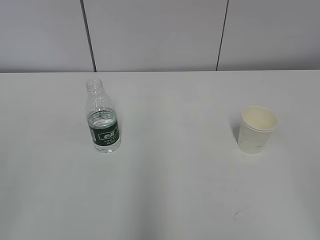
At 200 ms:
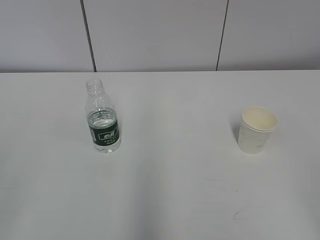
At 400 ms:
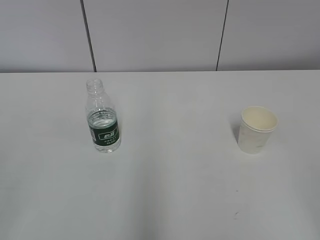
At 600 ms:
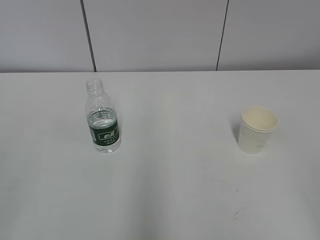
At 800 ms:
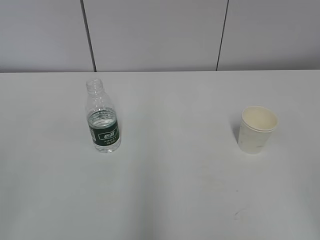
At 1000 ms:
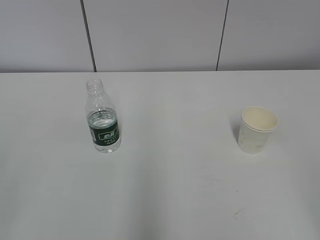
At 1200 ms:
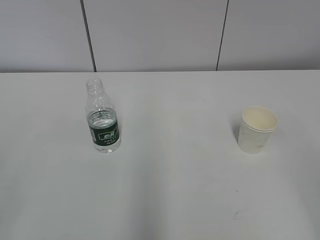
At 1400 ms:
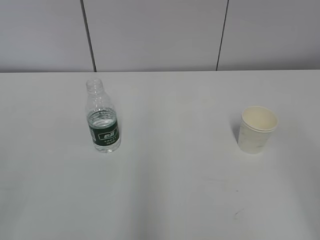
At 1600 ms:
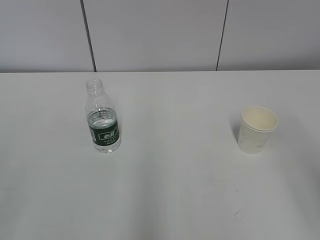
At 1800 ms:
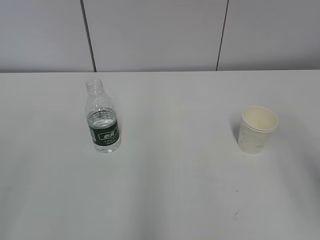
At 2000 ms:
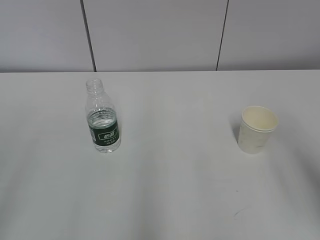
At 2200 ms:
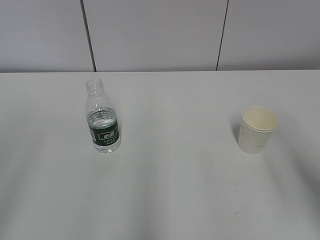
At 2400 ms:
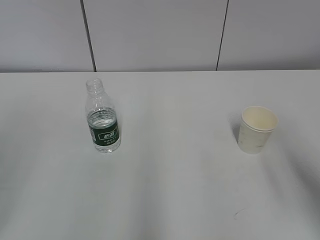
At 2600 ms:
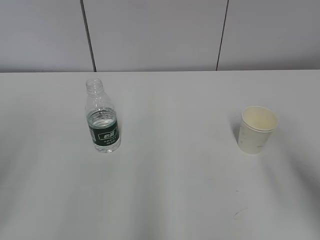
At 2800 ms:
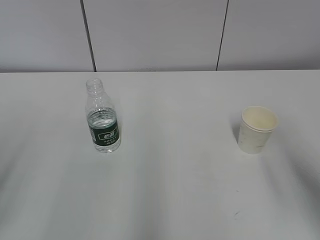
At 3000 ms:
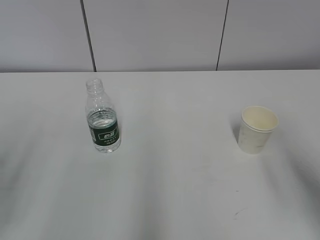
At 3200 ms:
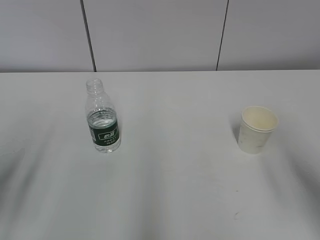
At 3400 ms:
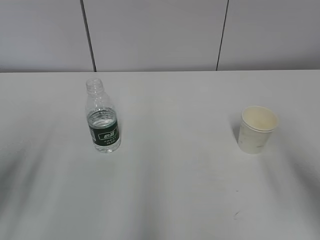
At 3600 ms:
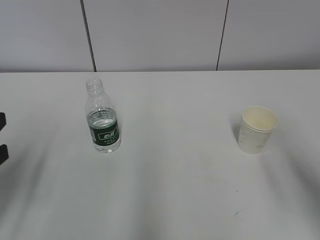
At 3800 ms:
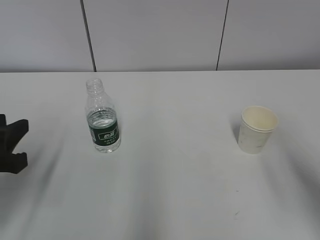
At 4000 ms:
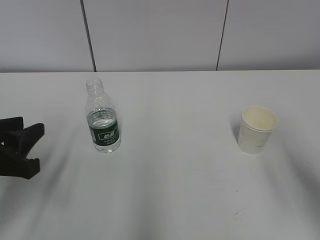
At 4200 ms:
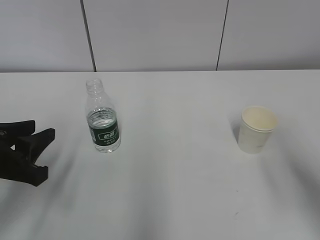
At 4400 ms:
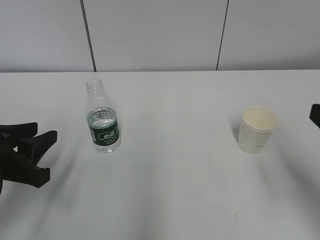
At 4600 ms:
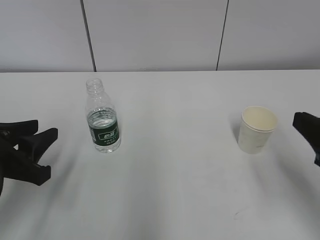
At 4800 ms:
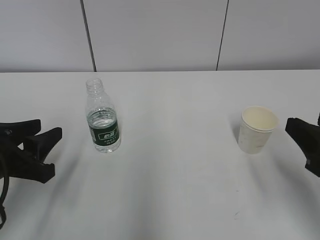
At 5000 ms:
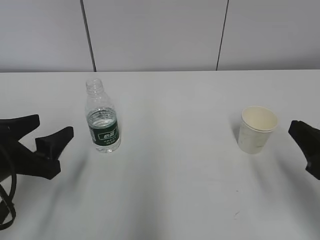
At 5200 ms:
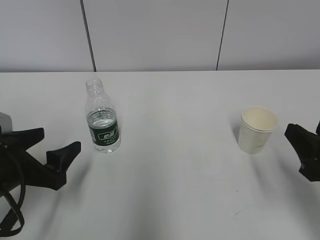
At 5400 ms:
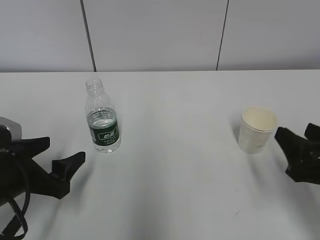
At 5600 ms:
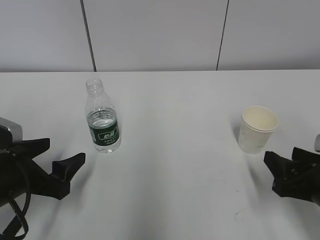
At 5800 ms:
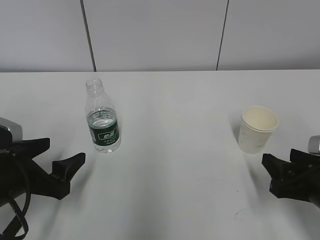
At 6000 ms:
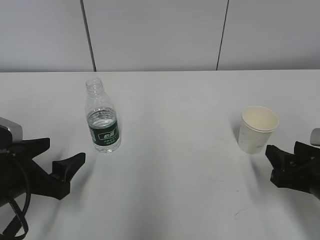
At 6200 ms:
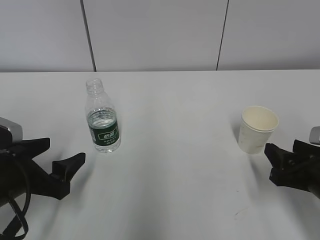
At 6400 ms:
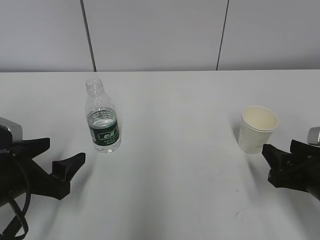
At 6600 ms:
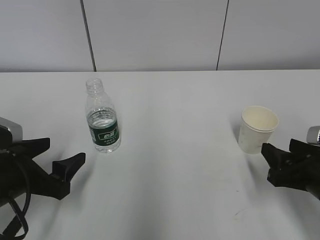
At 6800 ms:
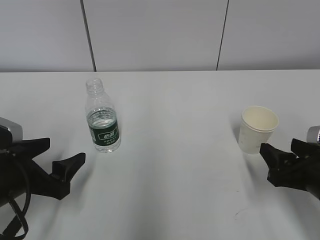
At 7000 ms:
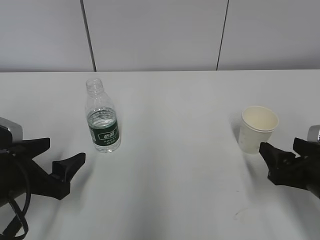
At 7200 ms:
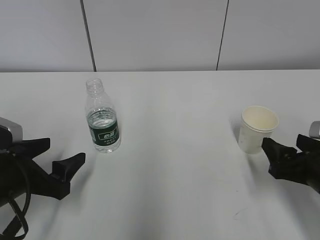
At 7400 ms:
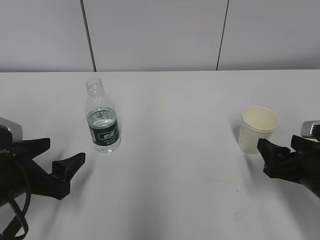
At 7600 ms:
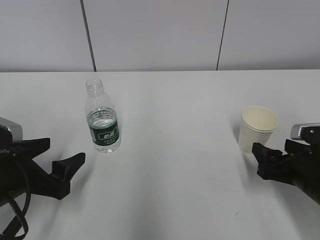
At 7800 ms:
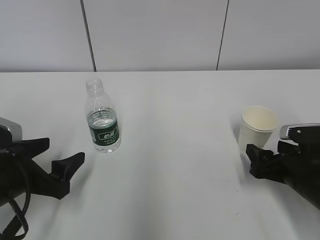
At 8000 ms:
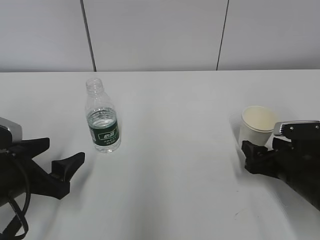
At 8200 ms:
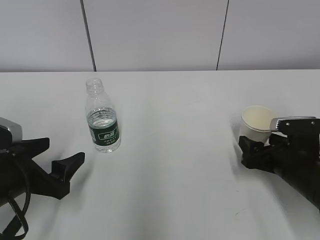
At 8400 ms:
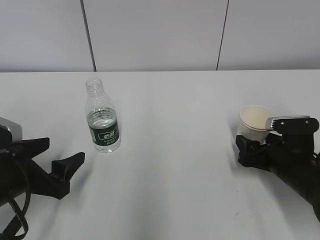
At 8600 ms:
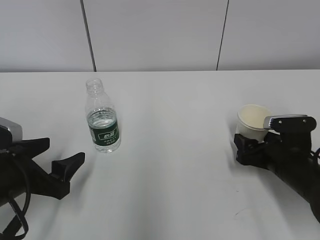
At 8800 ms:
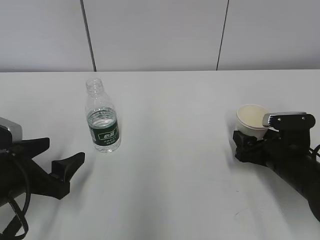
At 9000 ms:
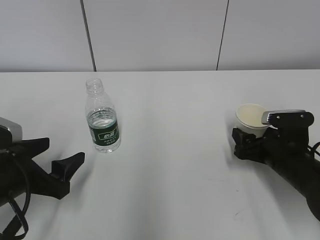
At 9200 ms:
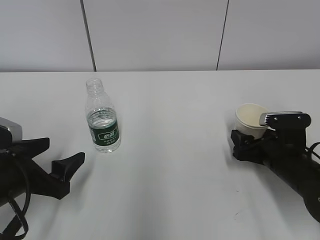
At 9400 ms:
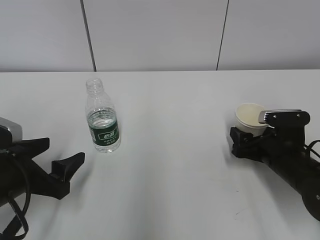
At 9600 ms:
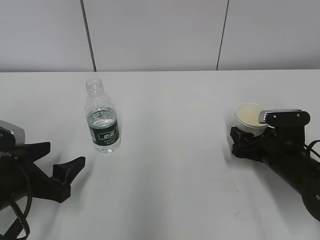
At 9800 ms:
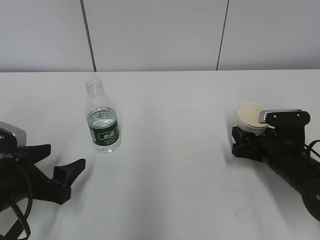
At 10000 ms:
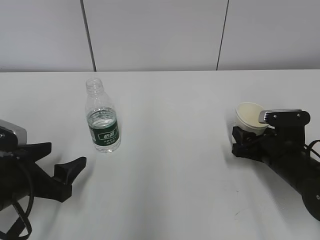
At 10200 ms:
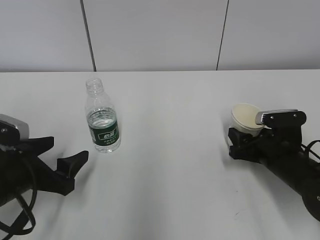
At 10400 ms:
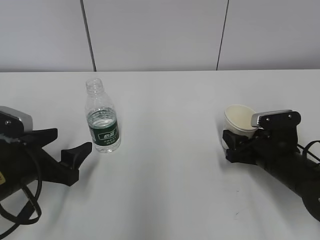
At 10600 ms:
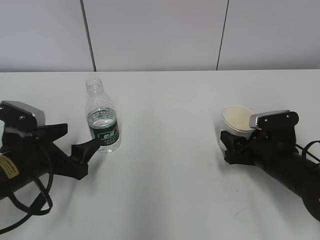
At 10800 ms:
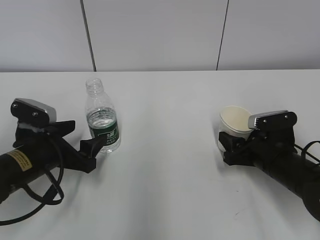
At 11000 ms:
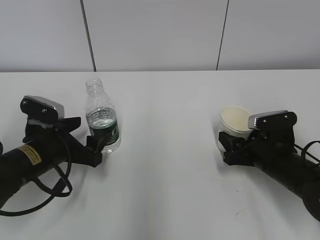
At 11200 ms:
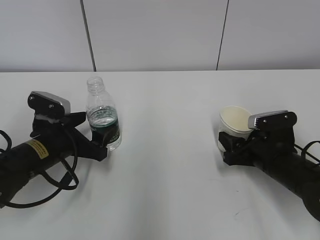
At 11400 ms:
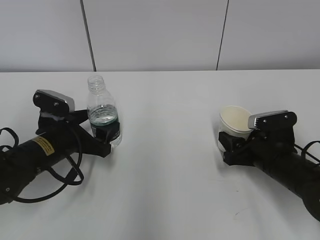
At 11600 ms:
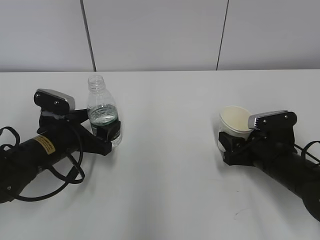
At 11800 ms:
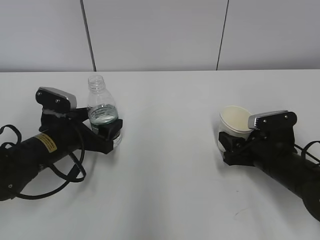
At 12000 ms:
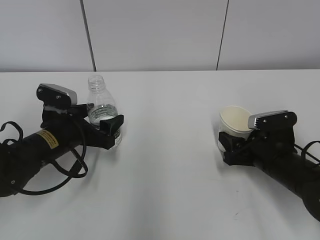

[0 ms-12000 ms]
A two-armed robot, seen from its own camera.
Step, 0 ms to 8200 ms: Grab the paper cup with the right hand.
Step, 8400 ms to 11000 ms: Grab the water bottle with the left hand.
1600 ms to 3000 ms: The right gripper shifts roughly 5 cm forward.
3000 ms to 4400 ms: The left gripper moves downward, forward and to the right, approximately 15 cm.
4400 ms to 6000 ms: The right gripper shifts about 15 cm downward and forward; the left gripper heads downward, covering approximately 5 cm, and opens its fingers.
6000 ms to 7600 ms: The right gripper opens.
7600 ms to 9000 ms: The right gripper moves forward, roughly 5 cm.
9000 ms to 10400 ms: The right gripper closes up.
10400 ms to 12000 ms: The left gripper heads forward, covering approximately 10 cm.

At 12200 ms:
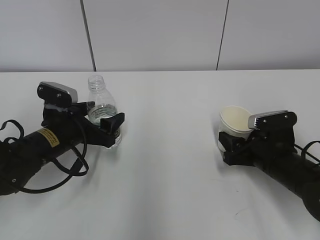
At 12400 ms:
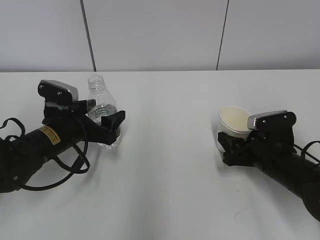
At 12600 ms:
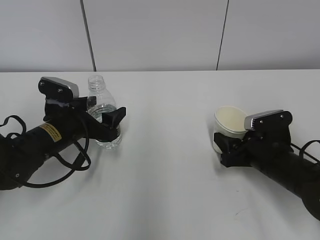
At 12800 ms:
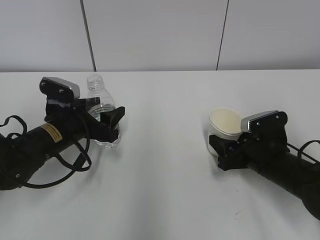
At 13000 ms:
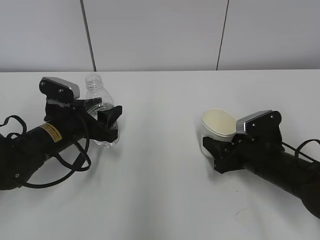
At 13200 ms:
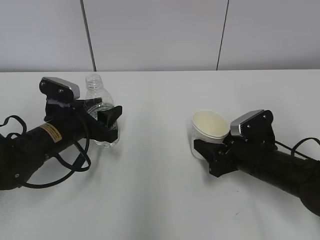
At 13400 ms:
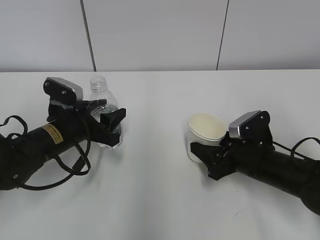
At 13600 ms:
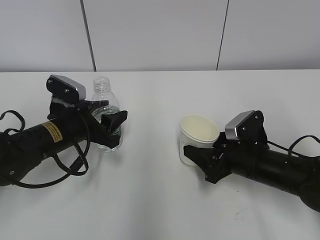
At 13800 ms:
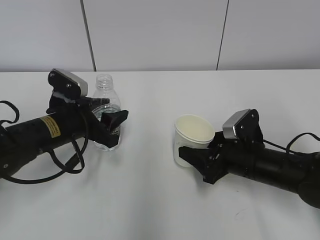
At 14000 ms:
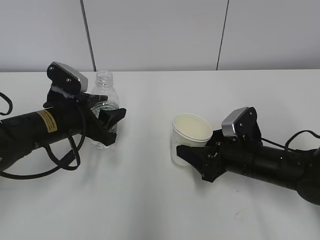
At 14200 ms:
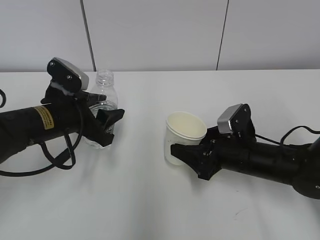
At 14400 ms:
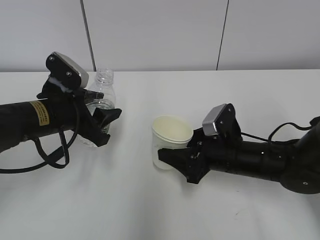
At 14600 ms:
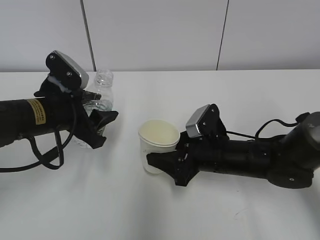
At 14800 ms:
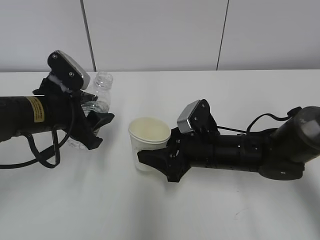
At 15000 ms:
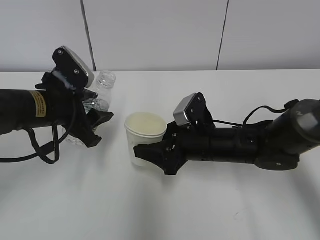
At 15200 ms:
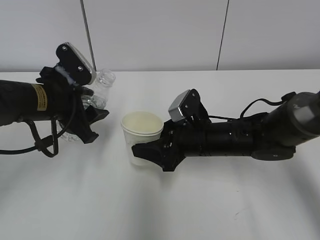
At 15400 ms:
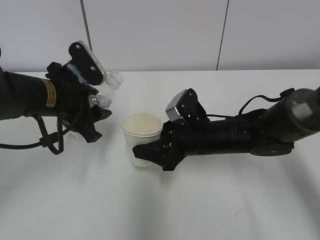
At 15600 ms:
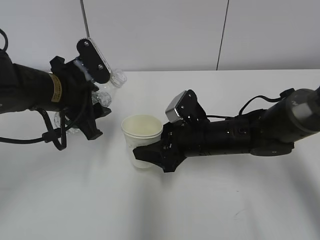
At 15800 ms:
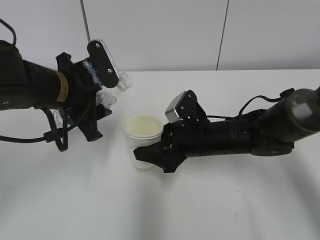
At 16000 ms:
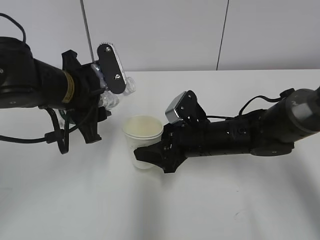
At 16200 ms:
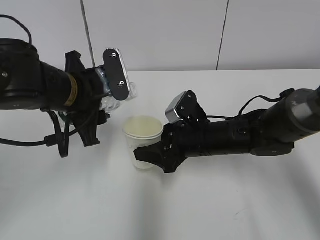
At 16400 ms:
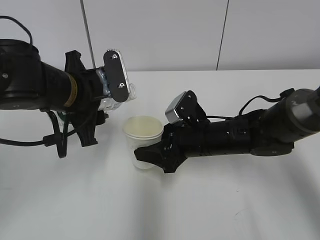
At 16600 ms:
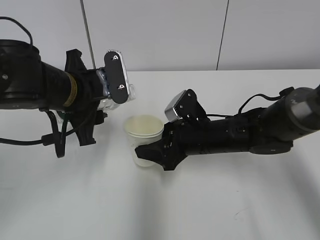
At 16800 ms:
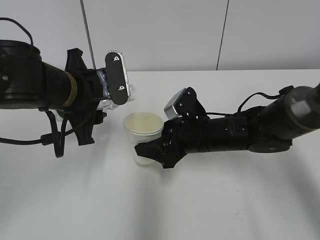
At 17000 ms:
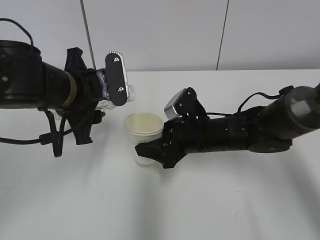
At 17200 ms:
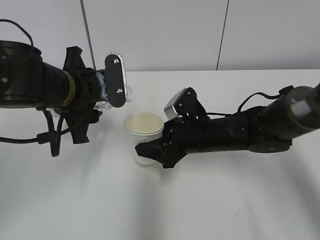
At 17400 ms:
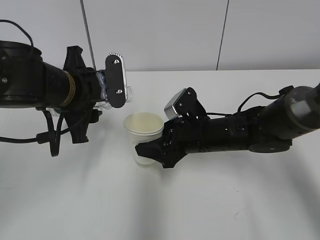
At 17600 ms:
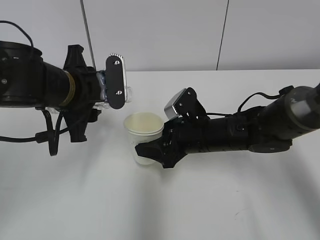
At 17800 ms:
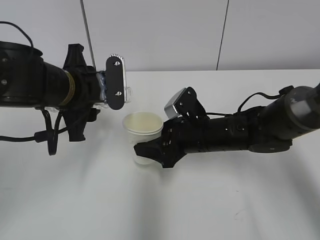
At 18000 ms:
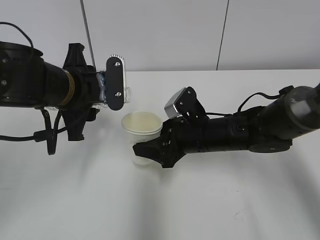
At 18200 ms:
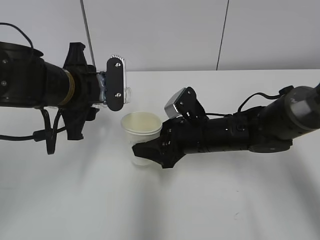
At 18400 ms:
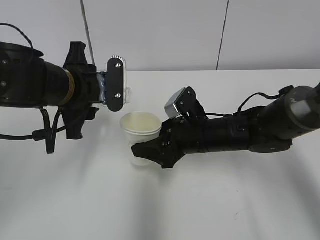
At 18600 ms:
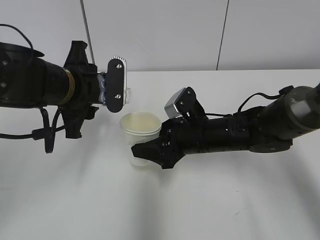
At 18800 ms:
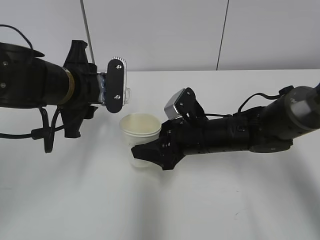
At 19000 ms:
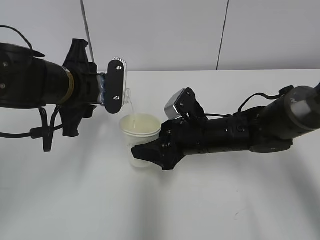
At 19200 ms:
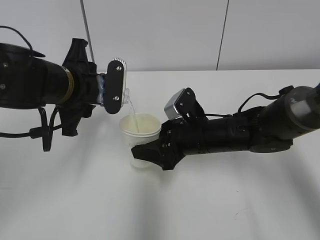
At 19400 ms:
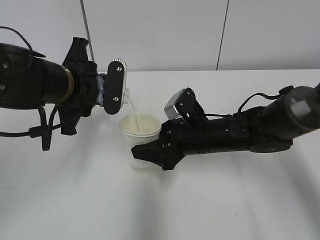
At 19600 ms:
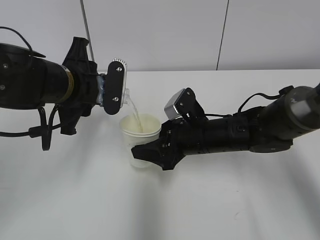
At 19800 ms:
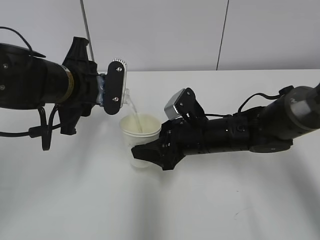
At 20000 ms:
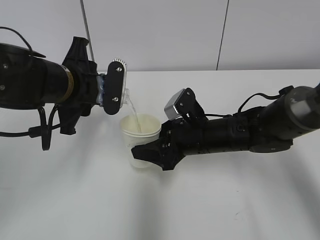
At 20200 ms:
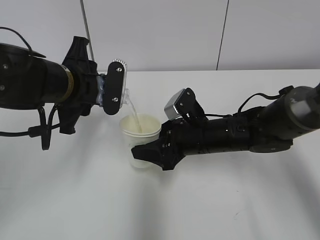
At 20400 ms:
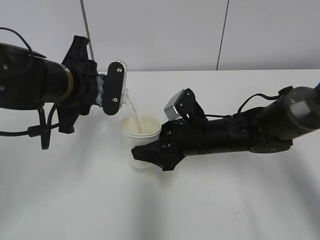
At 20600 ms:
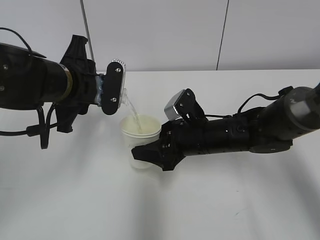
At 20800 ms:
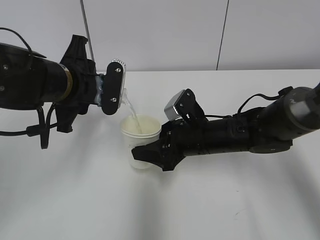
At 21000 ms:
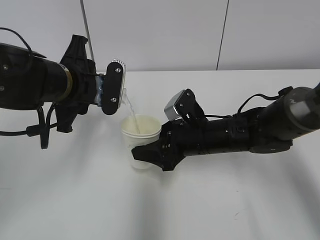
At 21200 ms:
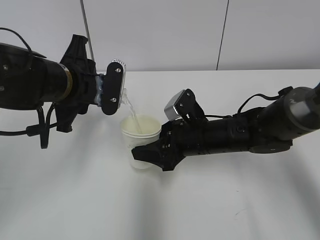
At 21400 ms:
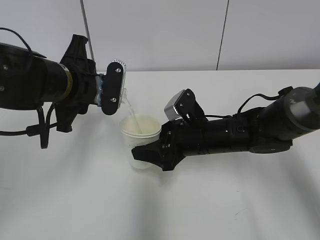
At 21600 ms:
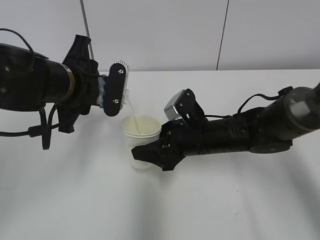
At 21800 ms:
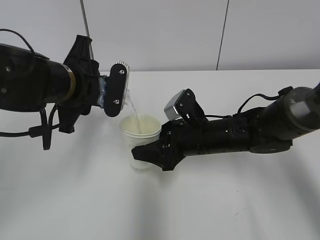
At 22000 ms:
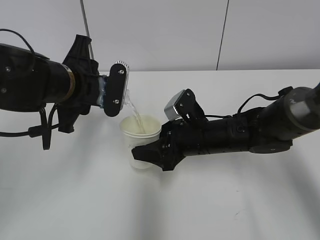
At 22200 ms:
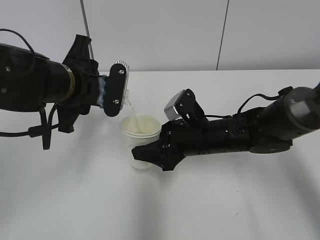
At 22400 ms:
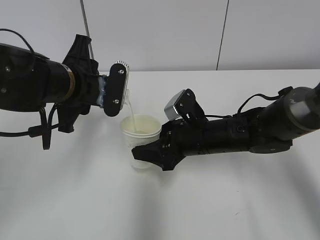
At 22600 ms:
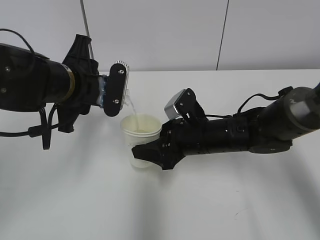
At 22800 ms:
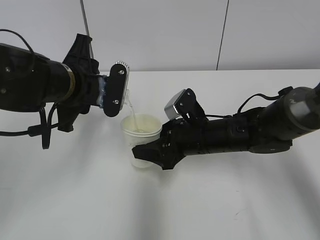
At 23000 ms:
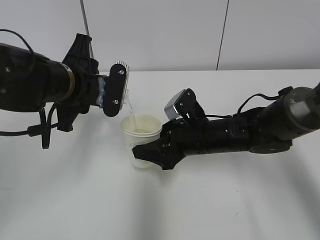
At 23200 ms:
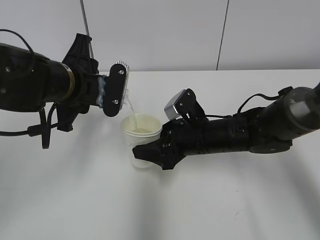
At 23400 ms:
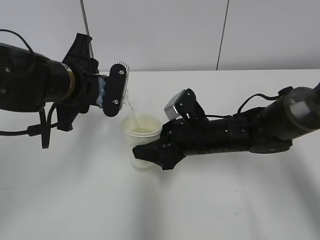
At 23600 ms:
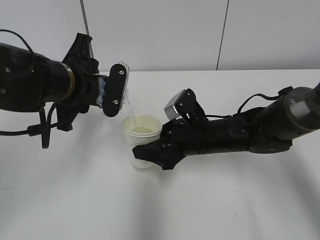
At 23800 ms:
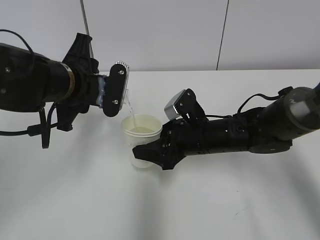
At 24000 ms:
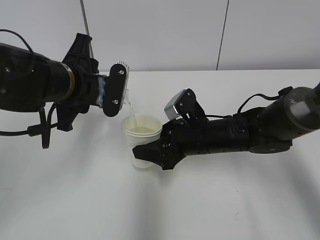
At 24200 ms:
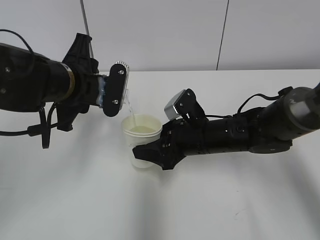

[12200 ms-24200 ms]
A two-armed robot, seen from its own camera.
Step, 12200 ms to 15600 ms: Lift the paper cup with the right hand.
Step, 15800 ms to 20600 ms: Fill water with the right hand.
Step, 15800 ms to 20600 ms: Pour water with the left hand.
Step, 20800 ms to 22600 ms: Collect water with the left hand.
12200 ms to 13800 ms: The left gripper closes its fingers.
13800 ms to 15200 ms: The left gripper goes approximately 5 cm upward; the right gripper shifts approximately 10 cm to the left.
15200 ms to 16600 ms: The left gripper shifts by about 5 cm.
16600 ms to 18200 ms: The grippers stay close to where they were, moving slightly.
18200 ms to 19800 ms: The grippers move only a little.
19800 ms to 22600 ms: The two grippers keep their place.
22600 ms to 24200 ms: Both grippers stay put.
